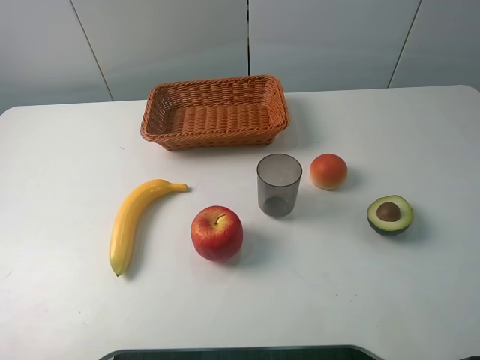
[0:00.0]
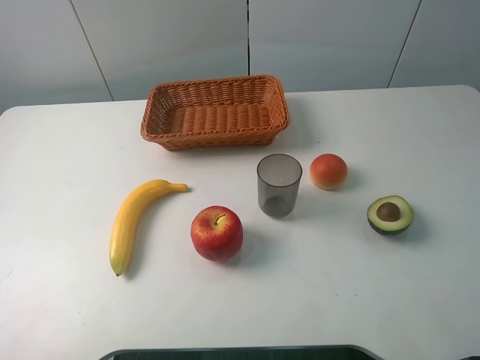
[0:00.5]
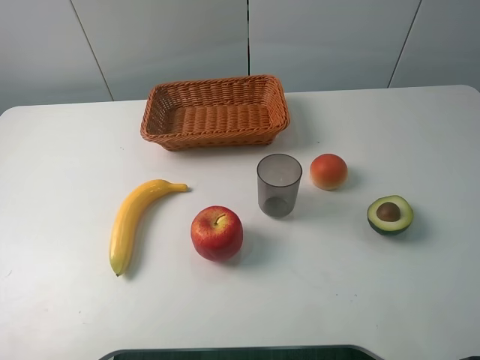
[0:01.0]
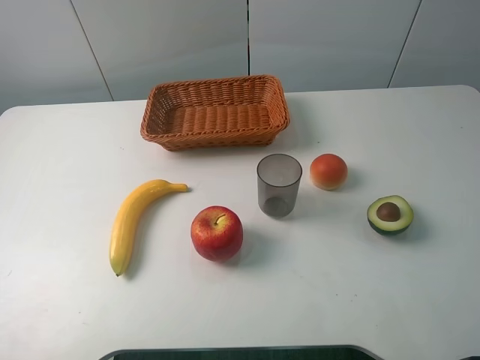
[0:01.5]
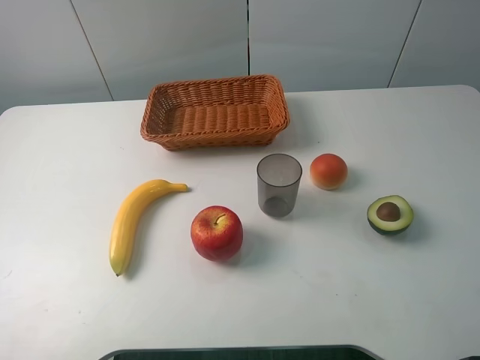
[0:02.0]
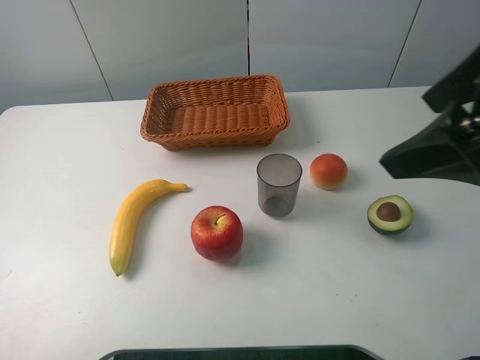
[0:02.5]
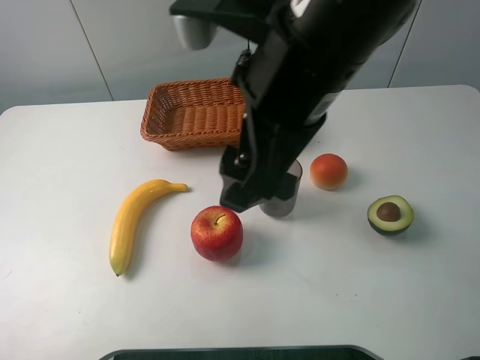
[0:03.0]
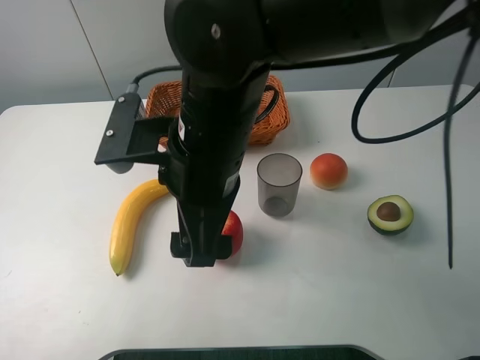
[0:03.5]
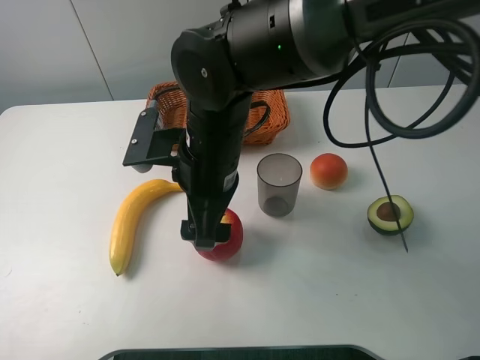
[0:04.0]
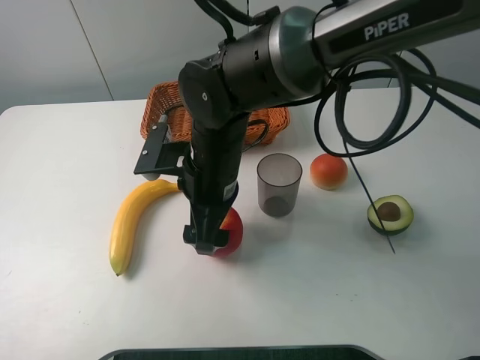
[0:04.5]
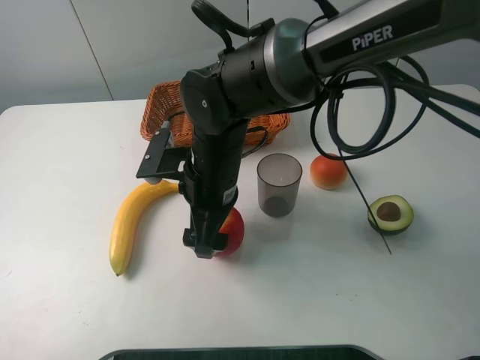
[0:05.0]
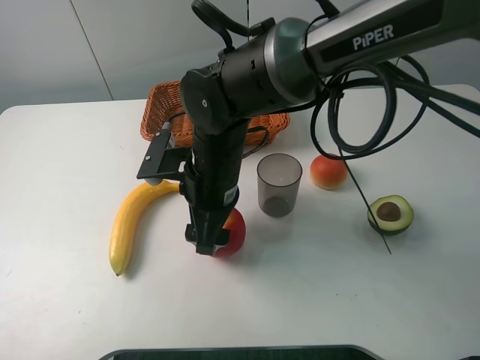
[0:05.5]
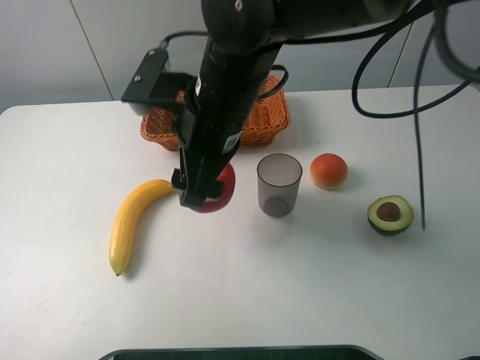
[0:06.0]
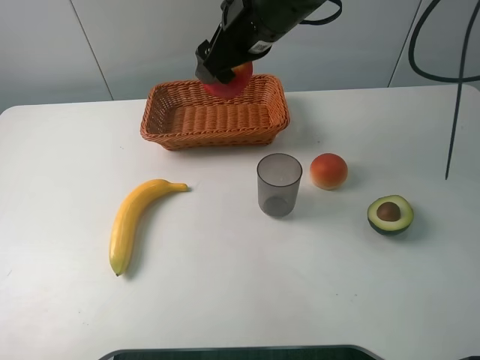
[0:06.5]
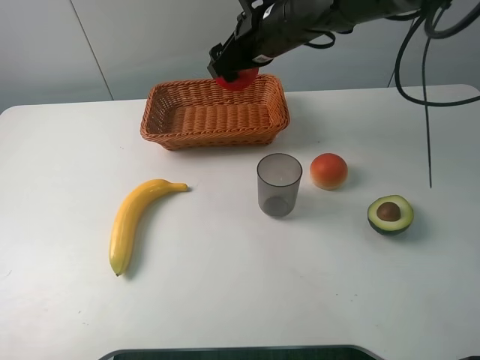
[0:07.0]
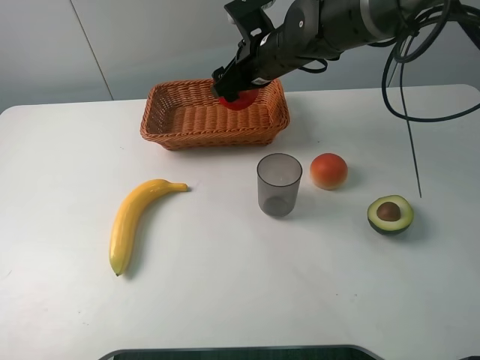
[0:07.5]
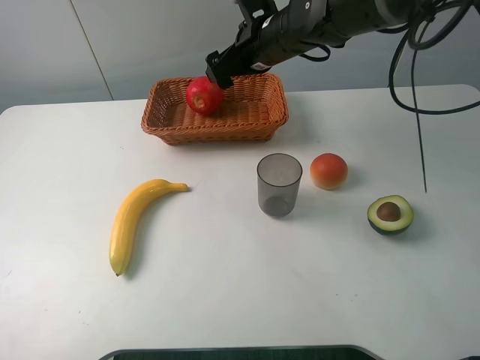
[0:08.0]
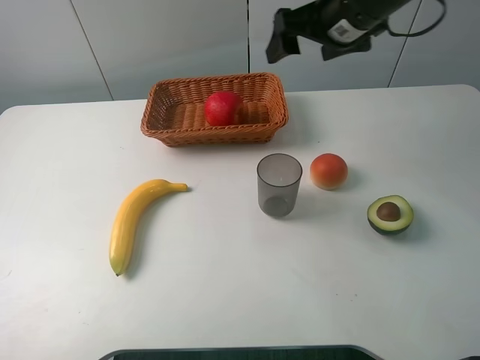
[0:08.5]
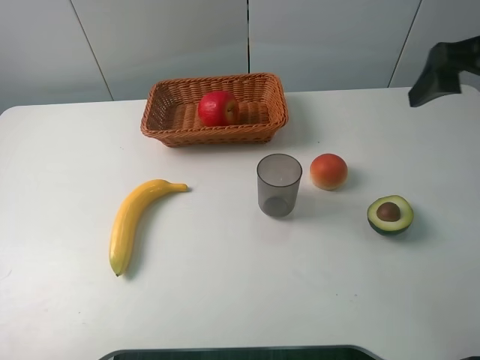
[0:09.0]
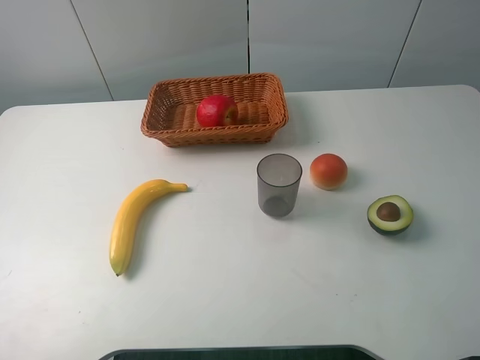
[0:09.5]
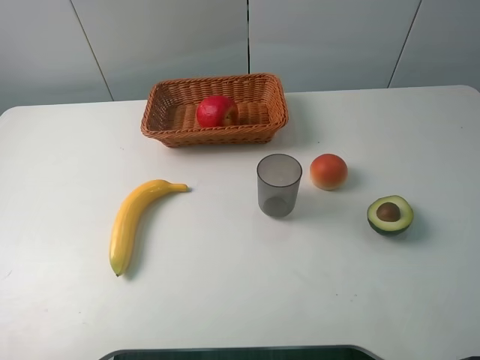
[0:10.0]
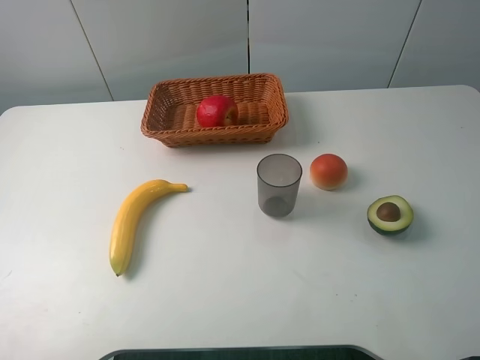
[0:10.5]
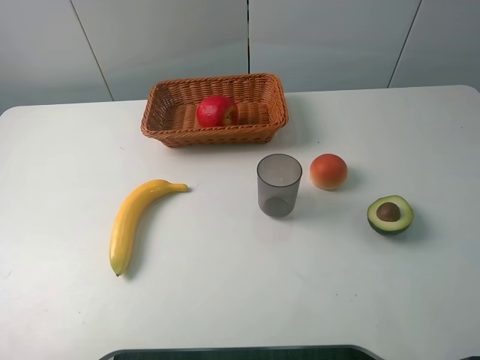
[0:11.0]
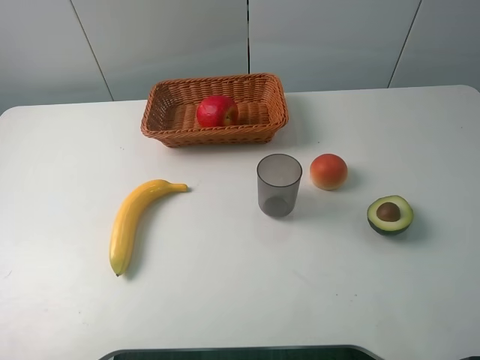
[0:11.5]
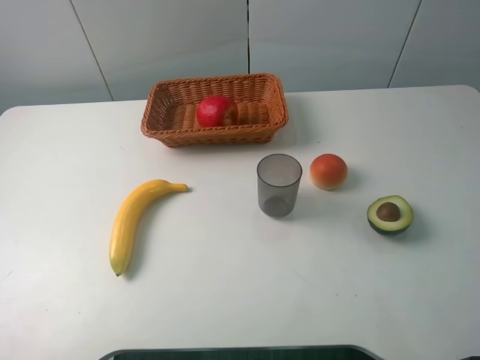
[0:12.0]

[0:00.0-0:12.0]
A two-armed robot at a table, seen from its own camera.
Task of the whole recording: randomly pick up an item from the table and put it in the basket.
Step, 0:00.0 to 0:05.0: Grasp the apple with the right gripper.
Step, 0:05.5 to 0:08.0: Place the apple into the basket with the right gripper.
0:02.0 to 0:04.0: The right gripper shifts approximately 40 cm to the left, forward and downward.
0:04.0 to 0:06.0: The right gripper heads upward, covering approximately 5 cm, and closes its fingers.
0:06.0 to 0:08.0: The right gripper goes roughly 15 cm forward, and opens.
0:08.0 to 0:10.0: The right gripper goes approximately 50 cm backward and to the right.

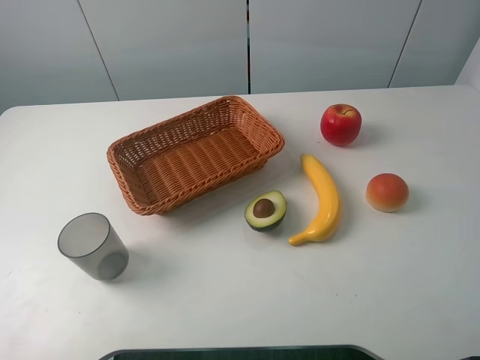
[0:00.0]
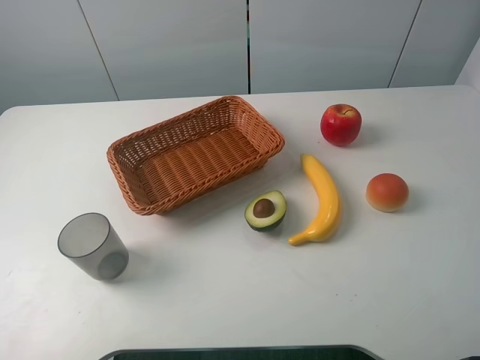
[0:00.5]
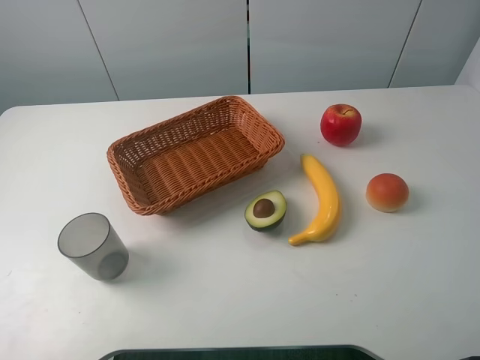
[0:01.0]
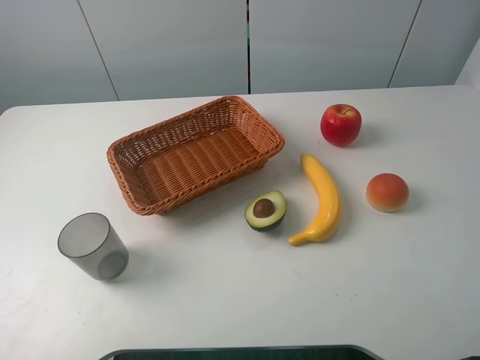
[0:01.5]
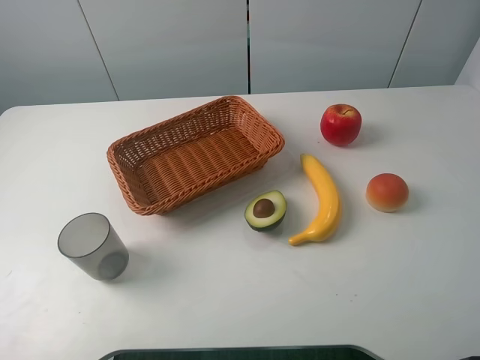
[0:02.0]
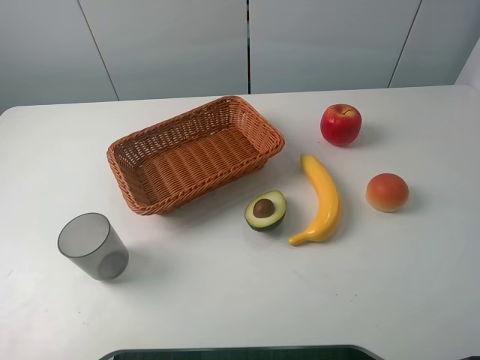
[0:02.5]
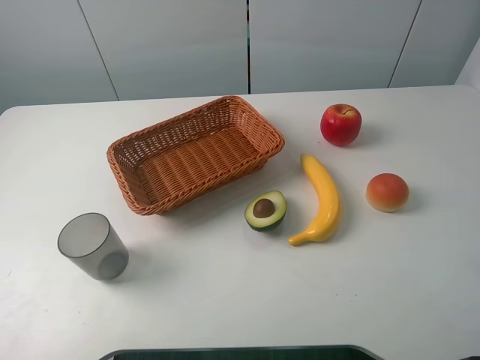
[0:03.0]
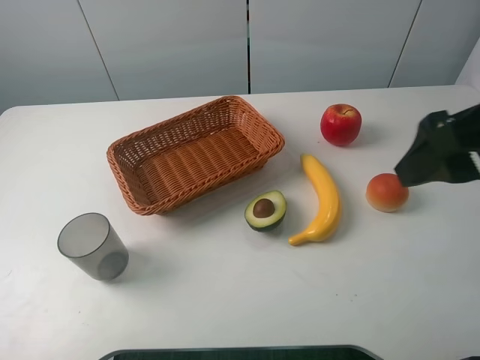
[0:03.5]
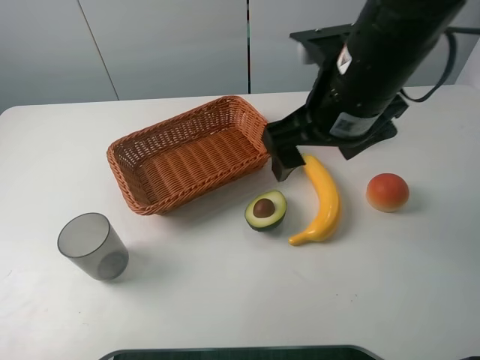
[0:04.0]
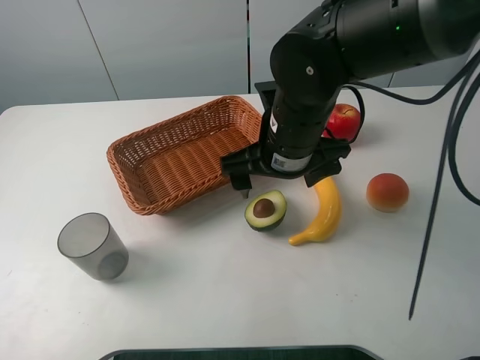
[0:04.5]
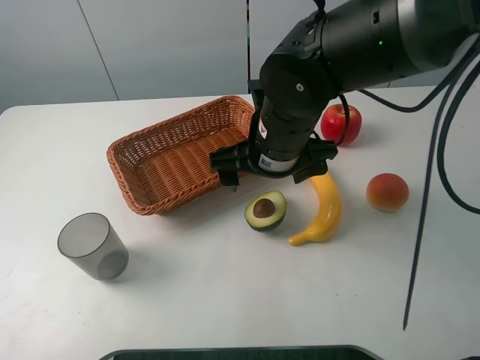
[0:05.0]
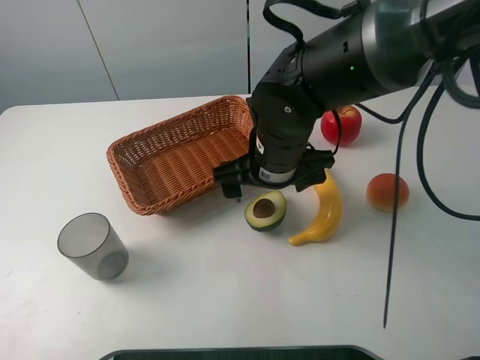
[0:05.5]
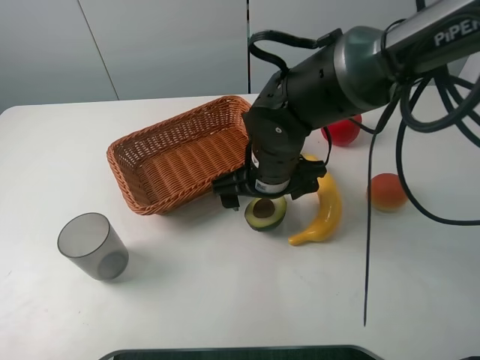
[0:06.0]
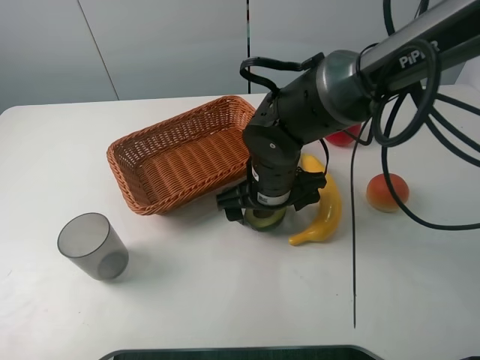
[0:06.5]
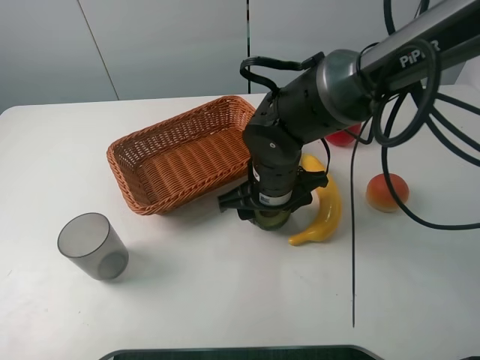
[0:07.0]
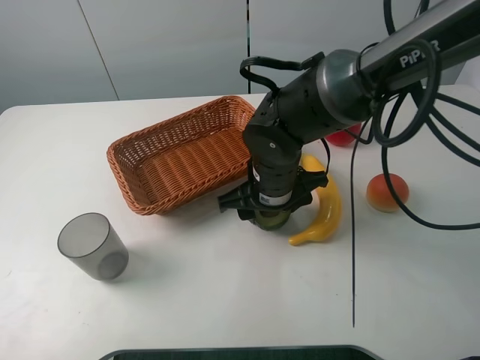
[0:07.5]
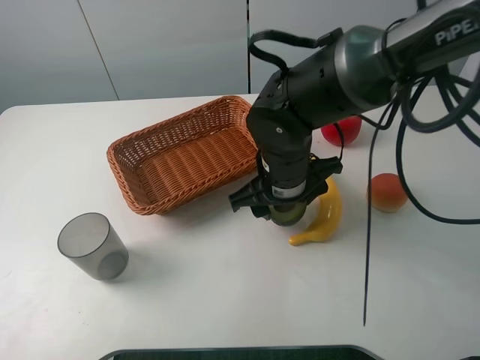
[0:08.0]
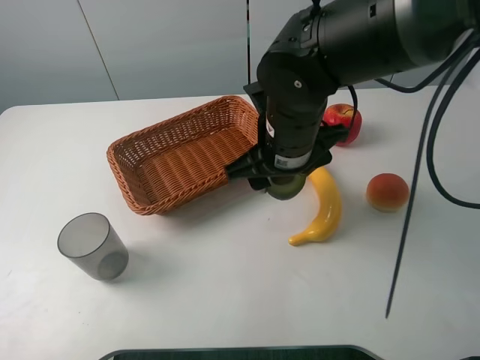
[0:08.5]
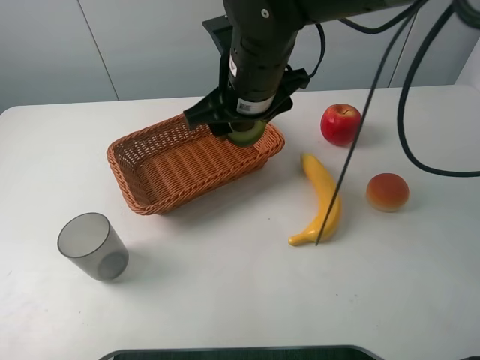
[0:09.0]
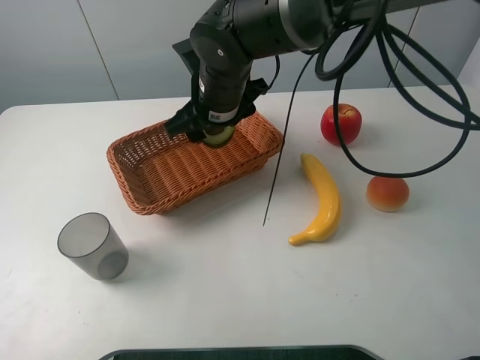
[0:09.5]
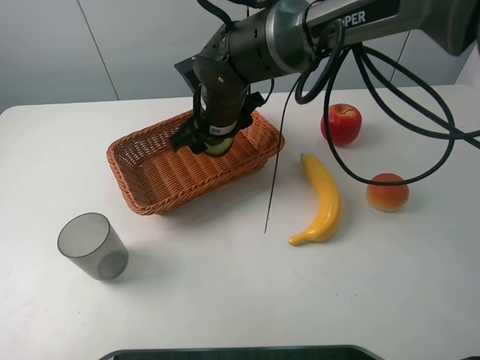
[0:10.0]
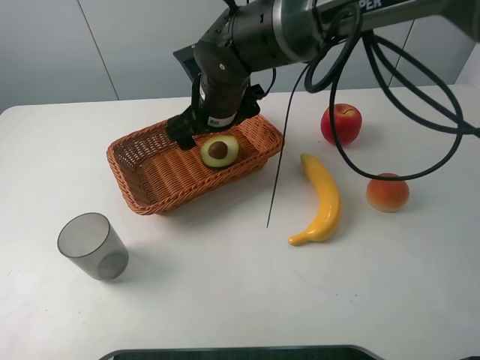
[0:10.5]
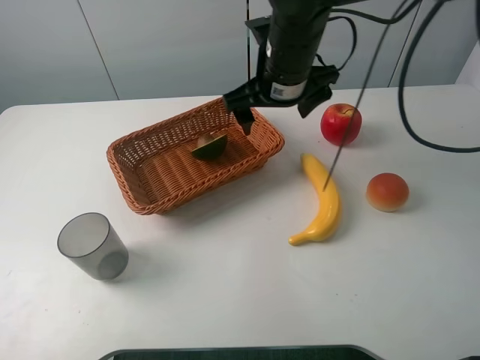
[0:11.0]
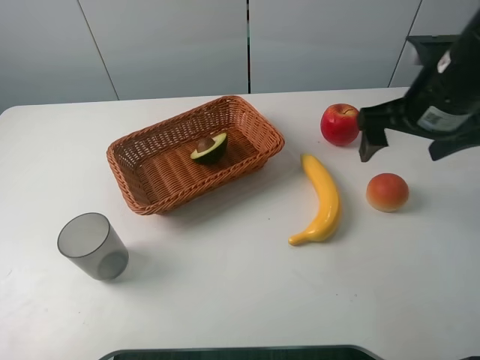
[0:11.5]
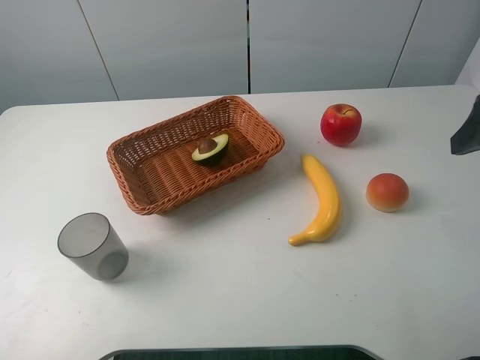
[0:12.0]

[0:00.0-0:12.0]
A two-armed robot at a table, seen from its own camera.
Task of the whole recording: randomly pick up an item from the table and put it in the basket.
Step, 0:00.0 to 0:06.5: Grasp the avocado with the right gripper.
Step, 0:07.0 to 0:10.5: Place the avocado into the basket with the right gripper.
0:00.0 to 0:02.0: Neither gripper changes place.
0:02.0 to 0:04.0: The right gripper shifts approximately 30 cm forward and to the left.
0:04.0 to 0:06.0: The right gripper travels downward and to the left by approximately 15 cm.
0:06.0 to 0:08.0: The right gripper closes.
0:08.0 to 0:10.0: The right gripper moves forward and to the left, about 10 cm, and reaches roughly 10 cm upward, then returns.
0:10.0 to 0:12.0: The right gripper moves to the right, backward and upward, roughly 40 cm, and opens.

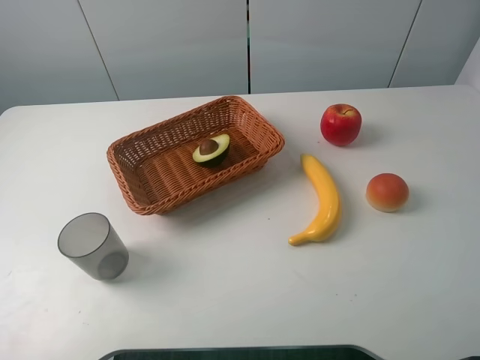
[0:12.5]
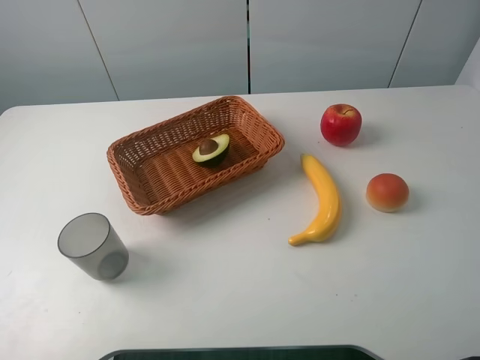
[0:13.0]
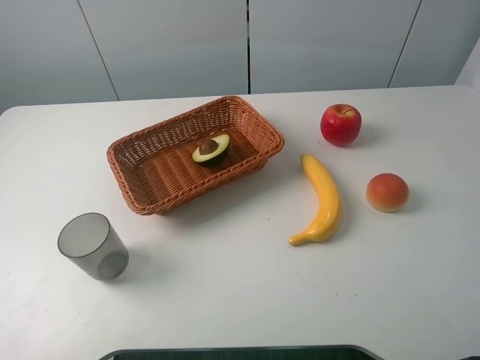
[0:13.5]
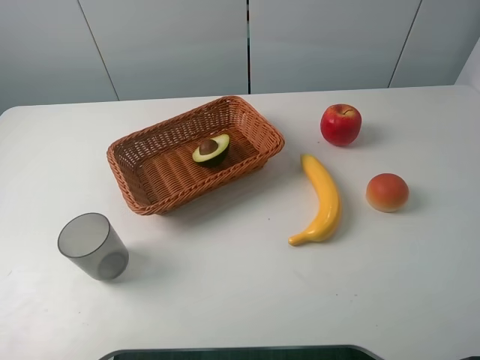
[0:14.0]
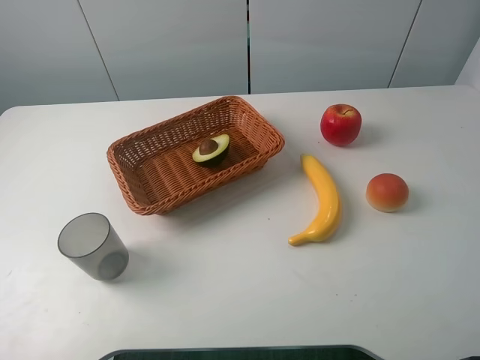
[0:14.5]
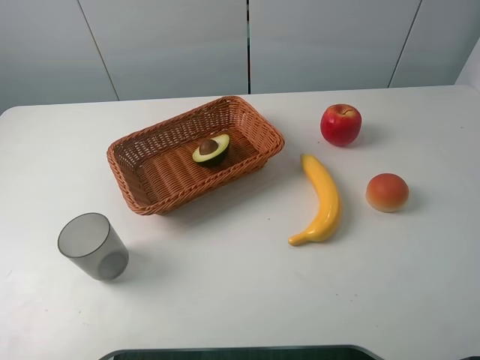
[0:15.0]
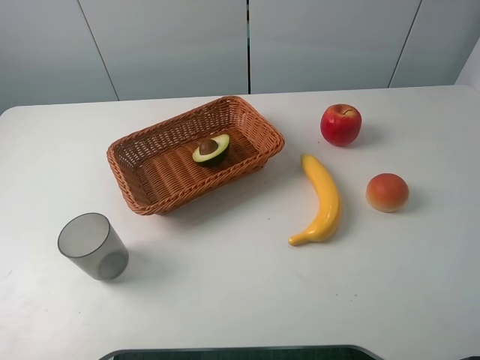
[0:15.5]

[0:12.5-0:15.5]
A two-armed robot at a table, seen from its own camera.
Task of the whole recording: randomly pick up an item from the table and put it in the basket.
0:14.0 to 0:15.5: Neither gripper changes place.
